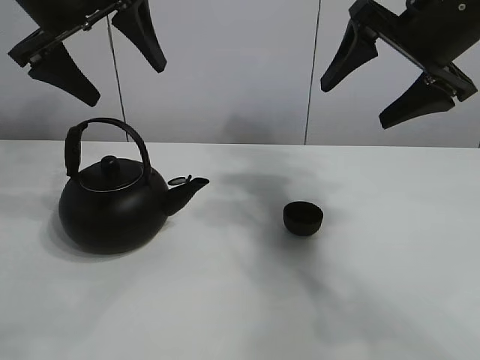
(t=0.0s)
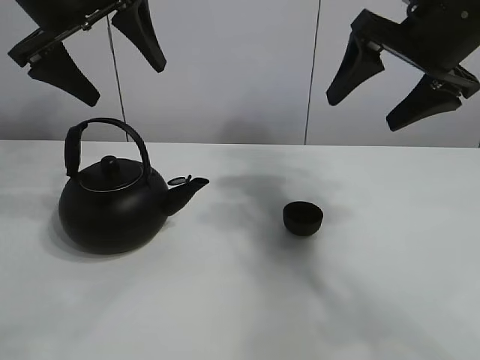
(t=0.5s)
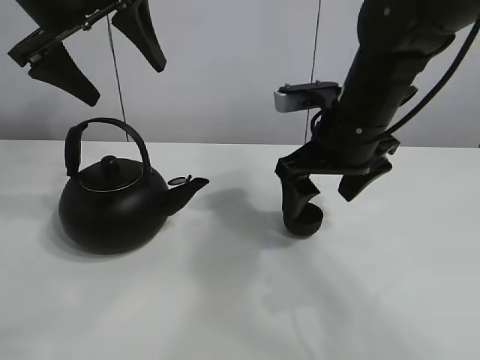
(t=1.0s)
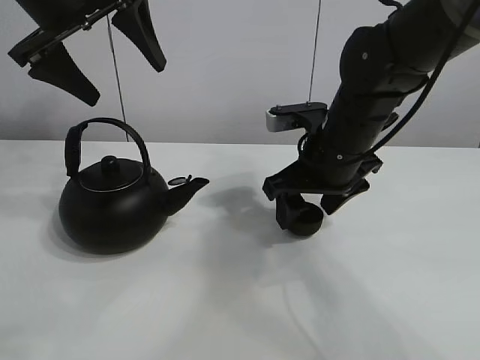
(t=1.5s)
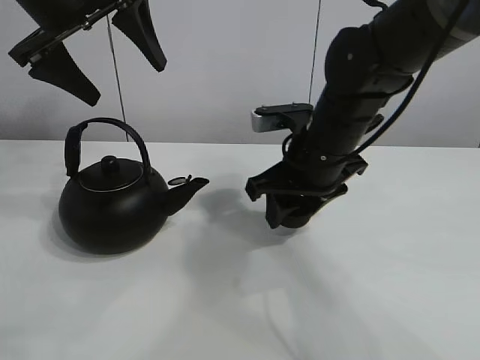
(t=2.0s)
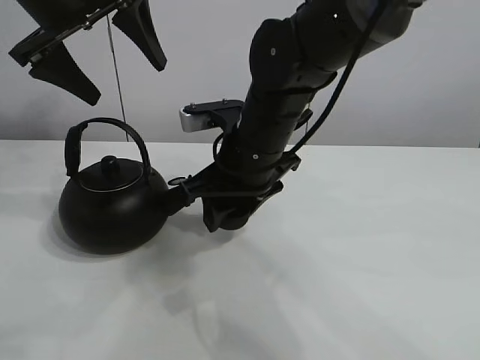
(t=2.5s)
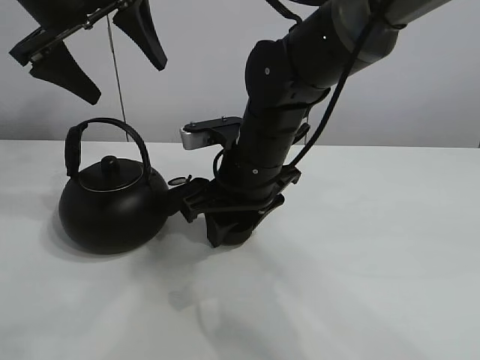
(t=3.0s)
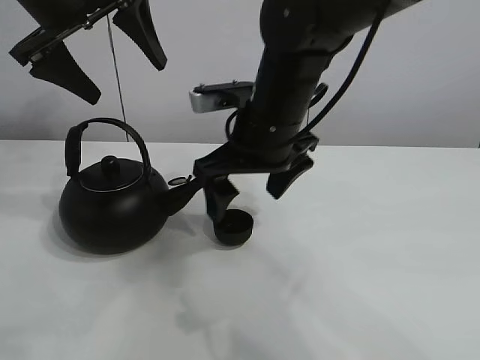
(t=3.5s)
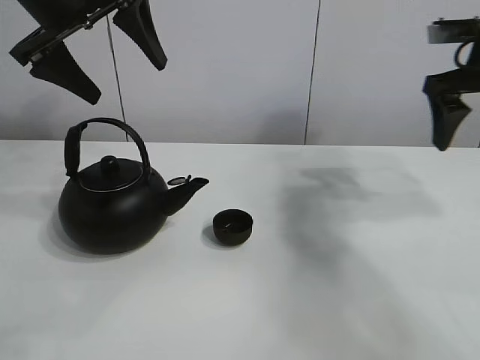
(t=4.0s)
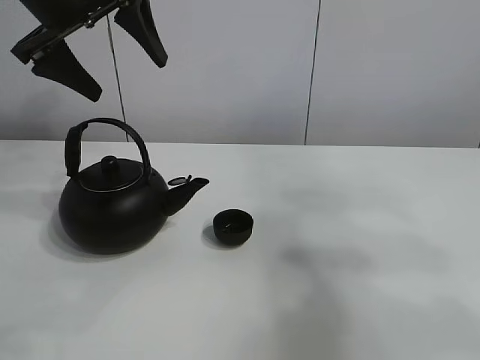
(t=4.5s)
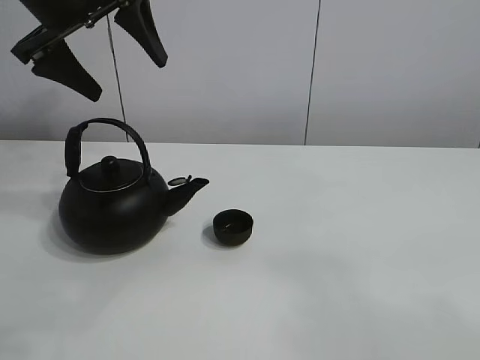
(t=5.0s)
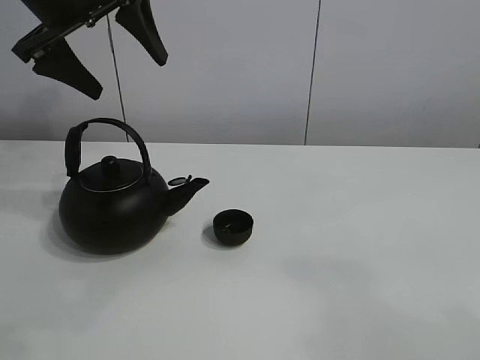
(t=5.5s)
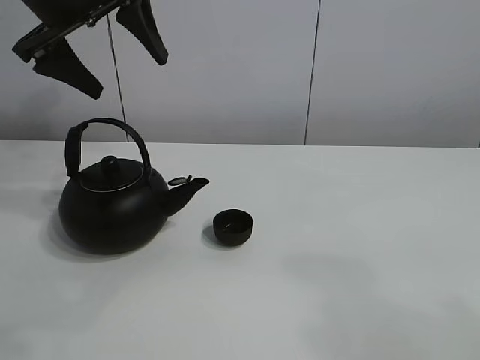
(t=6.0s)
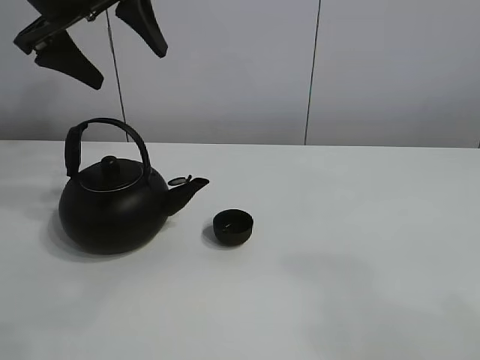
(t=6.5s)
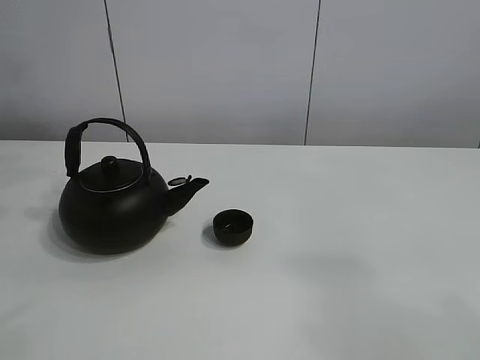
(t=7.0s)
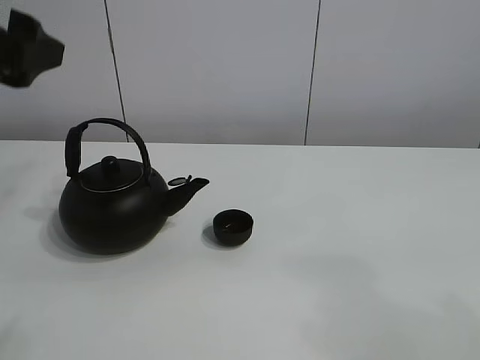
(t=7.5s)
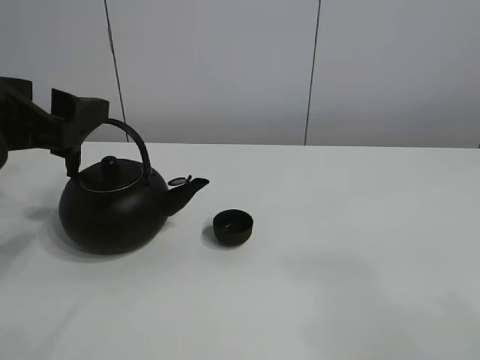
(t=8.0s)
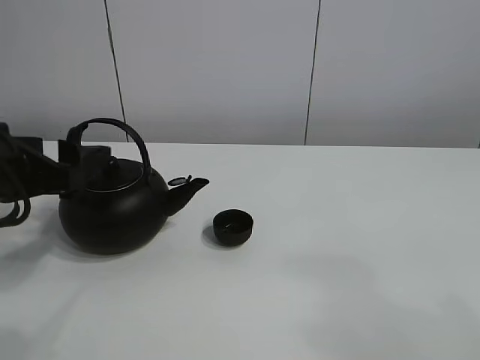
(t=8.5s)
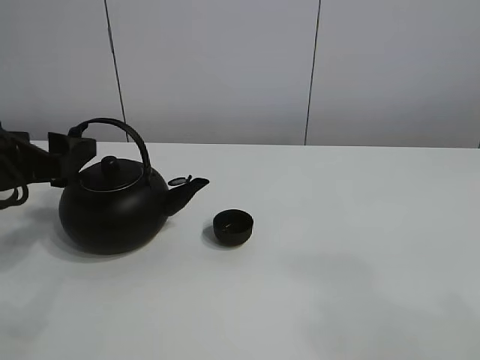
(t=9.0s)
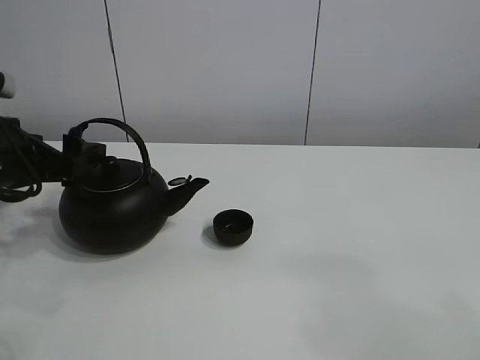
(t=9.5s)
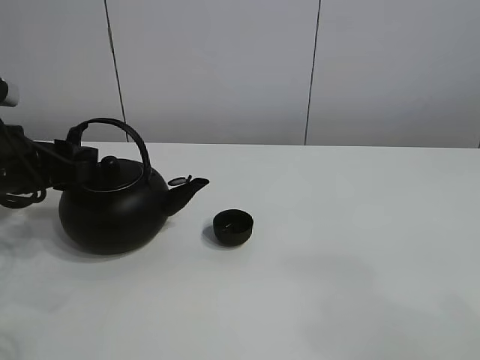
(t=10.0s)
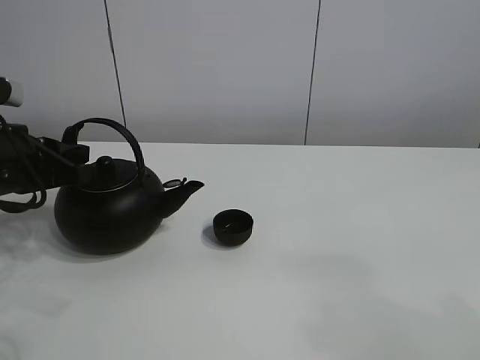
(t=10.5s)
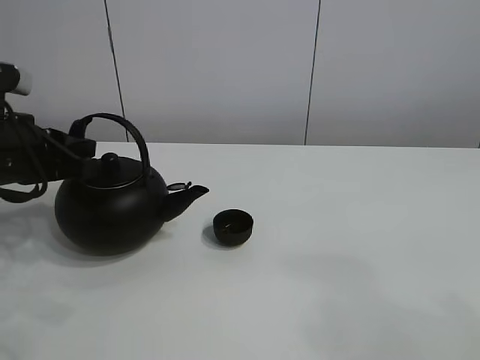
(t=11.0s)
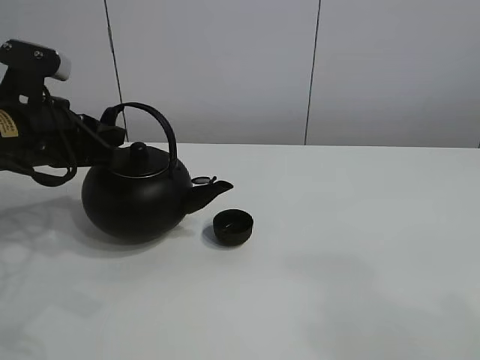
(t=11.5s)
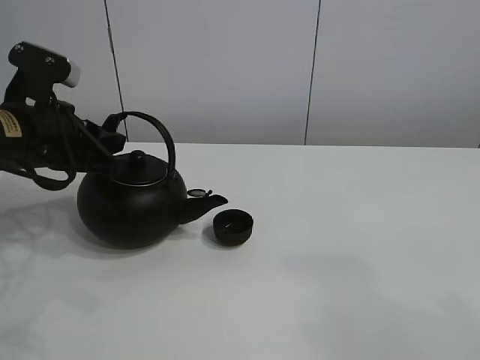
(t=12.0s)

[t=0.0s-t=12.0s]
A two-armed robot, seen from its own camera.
Task of the whole recording: pour tea into the teacup.
Step, t=0.0s to t=1.5s: Pick up the teacup with the right gripper.
Step, t=2.5s to t=3.0s: Place the teacup in the center of view with the right gripper.
Step, t=3.5s to t=11.0s: Pick up the teapot with the left gripper.
t=2.0s to t=4.0s: The right gripper is displaced to the right and upward by approximately 25 cm, and opens its fingers.
t=4.0s to t=6.0s: The right gripper moves backward, about 40 cm.
t=6.0s to t=8.0s: The left gripper heads backward and downward, covering some 20 cm.
t=8.0s to t=10.0s: The left gripper travels downward and forward by approximately 10 cm, and closes its fingers.
t=10.0s to t=12.0s: The left gripper moves approximately 5 cm, and closes up.

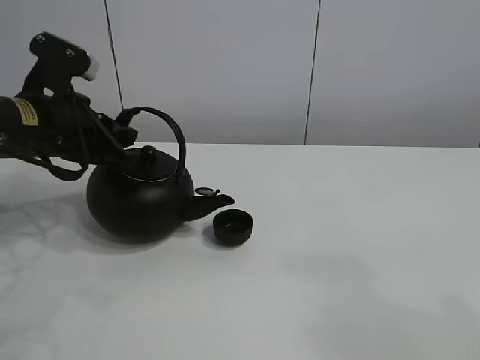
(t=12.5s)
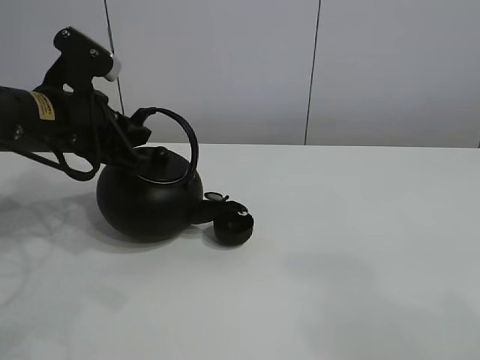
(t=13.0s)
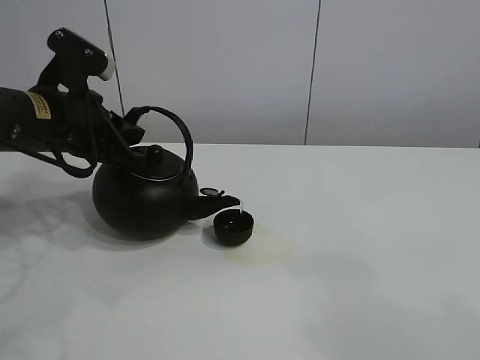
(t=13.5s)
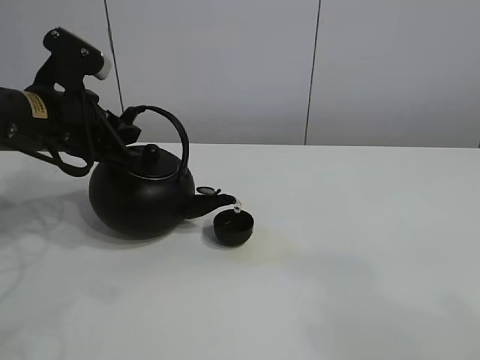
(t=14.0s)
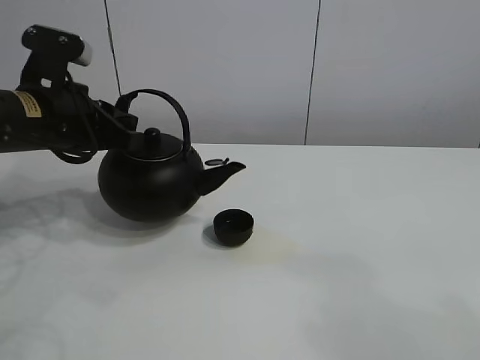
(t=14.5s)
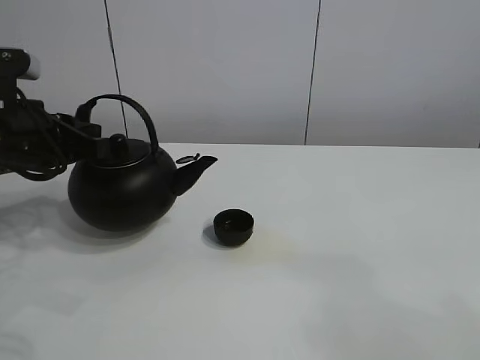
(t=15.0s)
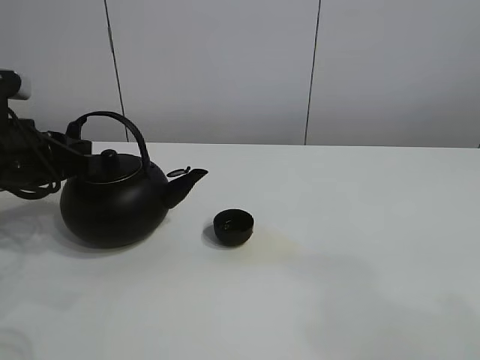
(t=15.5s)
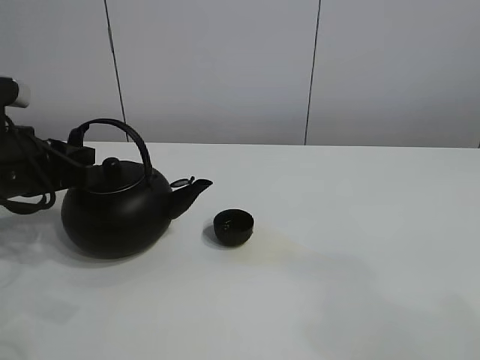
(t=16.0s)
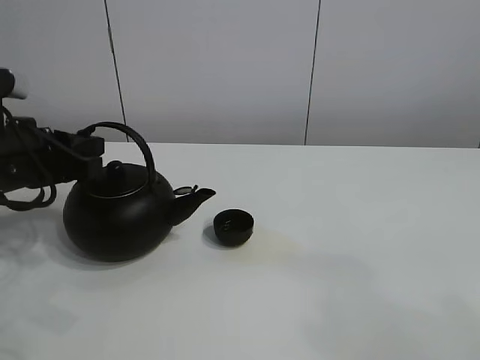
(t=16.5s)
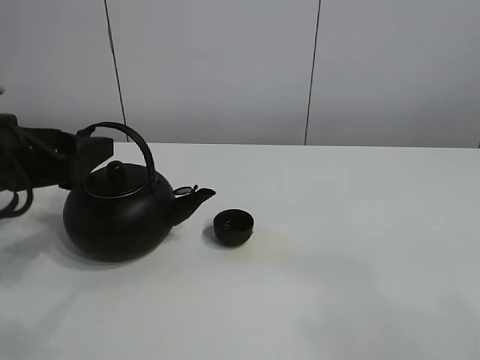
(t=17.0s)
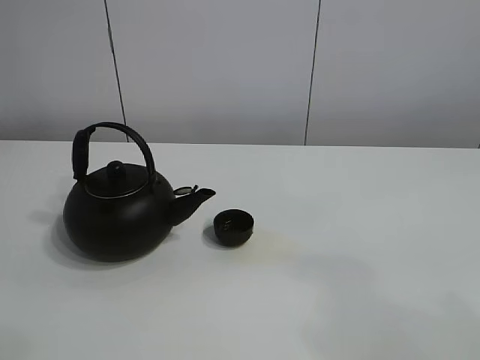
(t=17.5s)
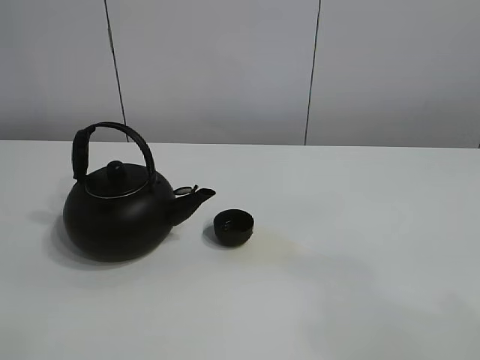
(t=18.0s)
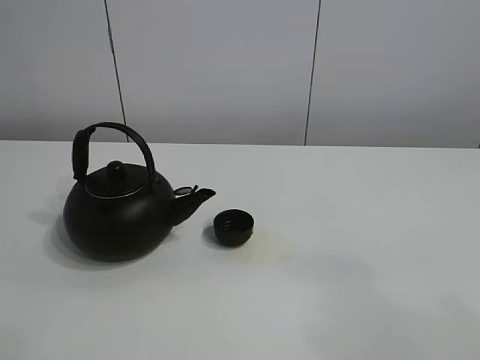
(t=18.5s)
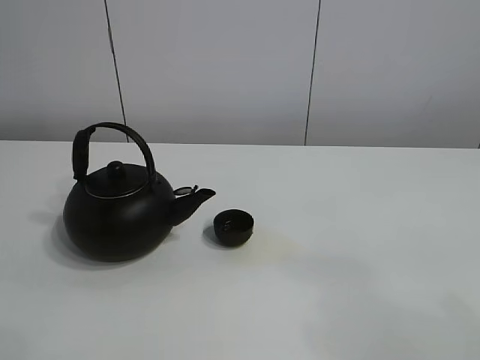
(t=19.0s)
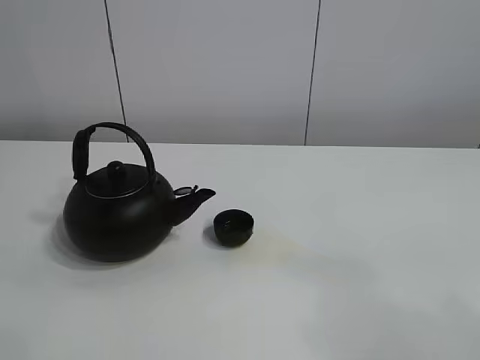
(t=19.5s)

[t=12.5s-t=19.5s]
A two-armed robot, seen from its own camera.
Task of the whole recording: pour tea into the teacup.
t=12.5s to t=14.5s: The grippers move only a little.
t=14.5s to t=16.0s: The left gripper shifts by about 5 cm.
t=16.0s to t=17.5s: The left gripper goes roughly 20 cm upward, and opens its fingers.

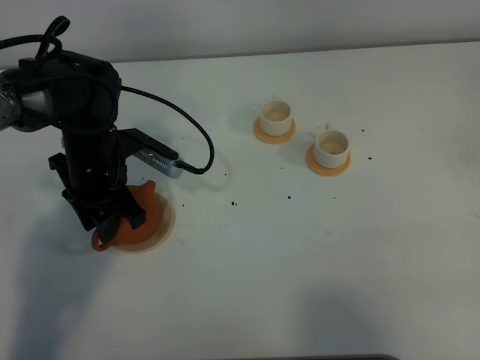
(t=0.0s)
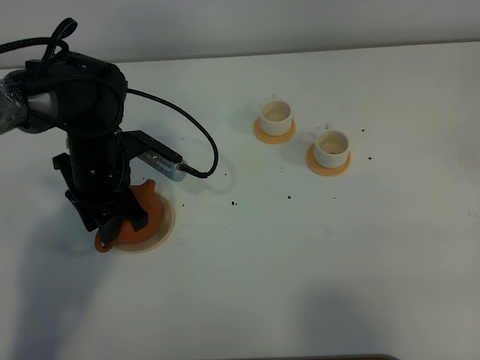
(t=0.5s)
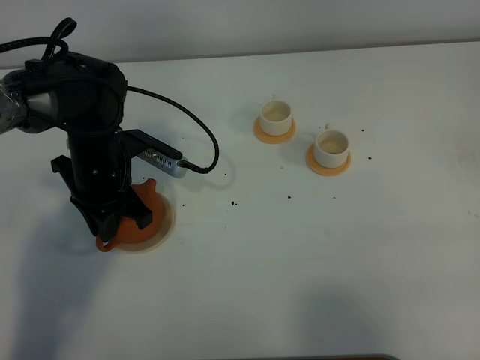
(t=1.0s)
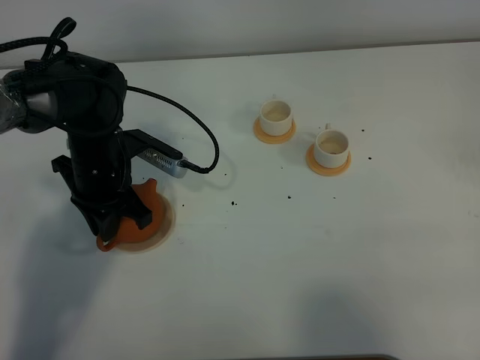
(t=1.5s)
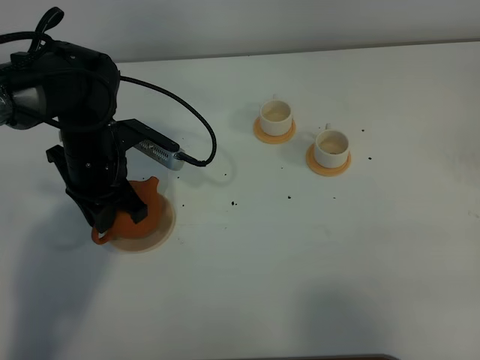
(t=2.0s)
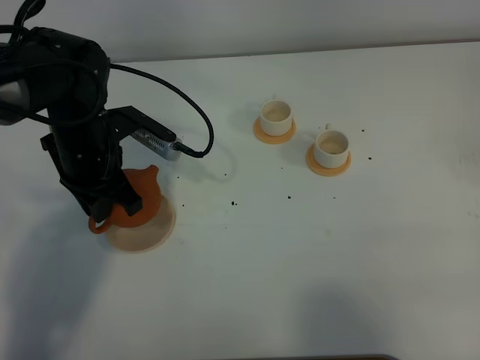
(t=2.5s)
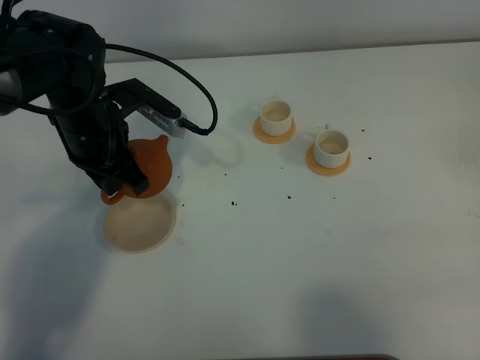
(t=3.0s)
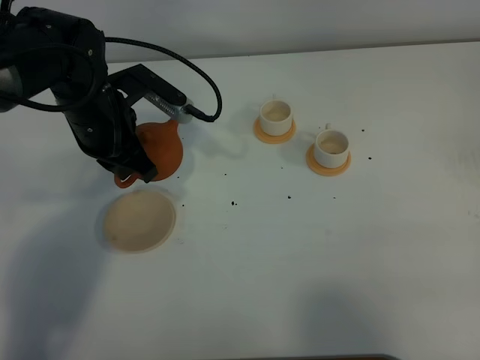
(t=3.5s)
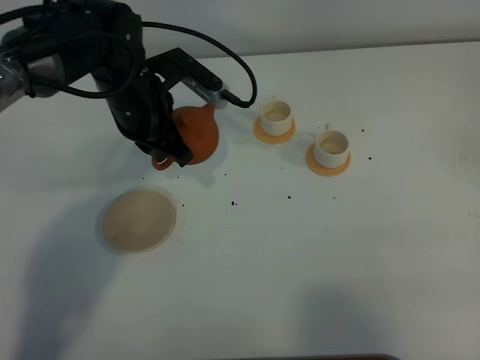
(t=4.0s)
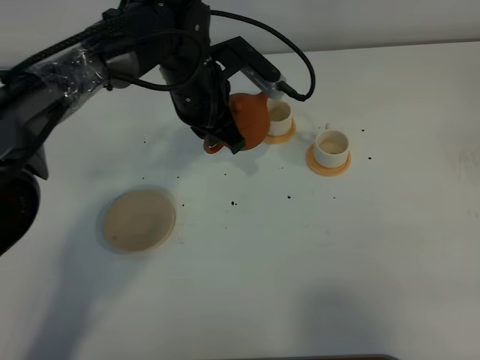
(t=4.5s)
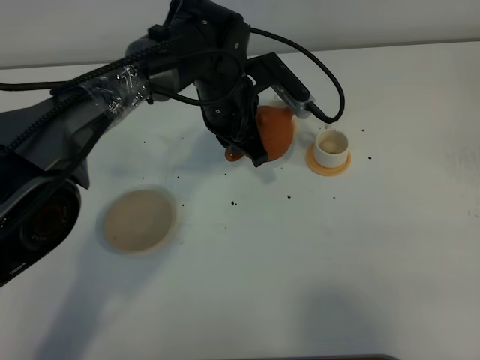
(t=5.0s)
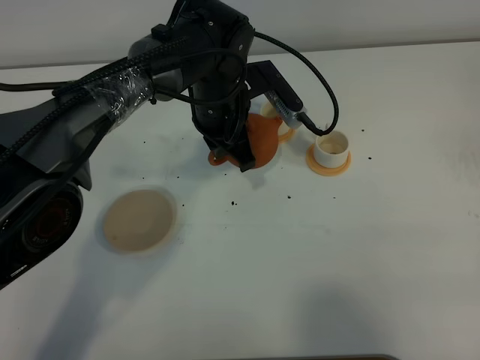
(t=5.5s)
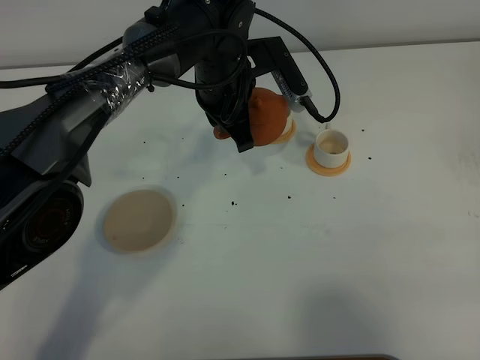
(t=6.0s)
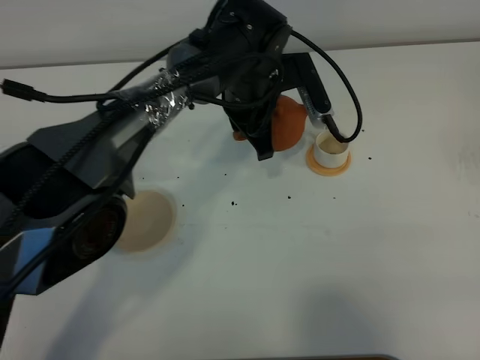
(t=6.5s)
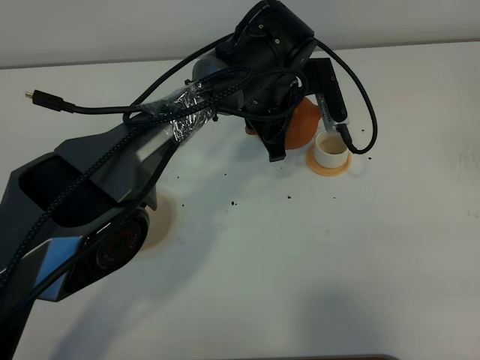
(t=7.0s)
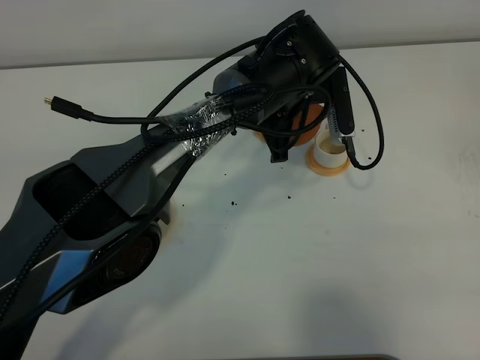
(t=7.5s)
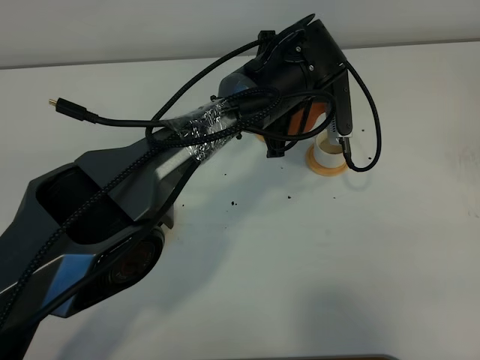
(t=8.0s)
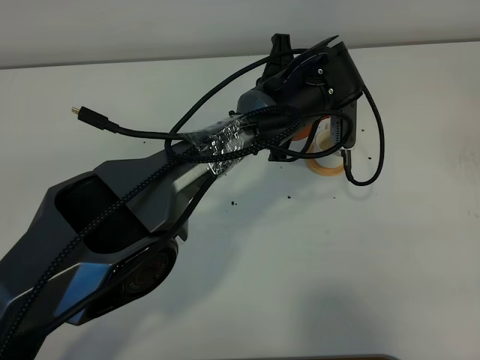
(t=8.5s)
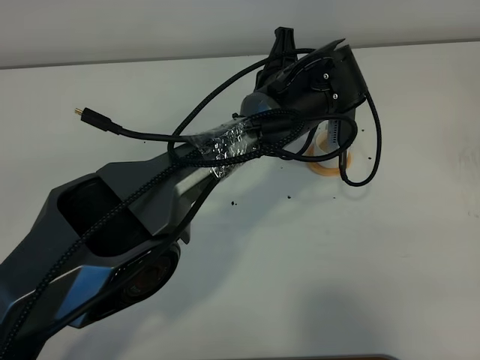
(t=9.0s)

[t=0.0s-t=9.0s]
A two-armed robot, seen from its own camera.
Task of the whole recording: grasp the brown teapot and pour the tea into the two white teacups one by one, put the brown teapot back in its original place.
Step, t=0.0s to t=2.5s: Pick up the teapot with the left gripper.
t=0.0s to t=2.0s: The left gripper closes its fingers.
t=2.0s to t=4.5s: The left gripper goes about 15 cm to the right and forward.
t=4.5s to t=7.0s: The left gripper is displaced to the right by roughly 10 cm.
